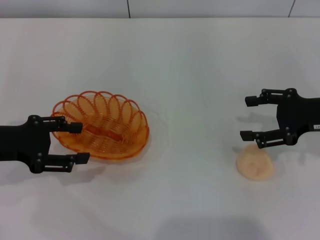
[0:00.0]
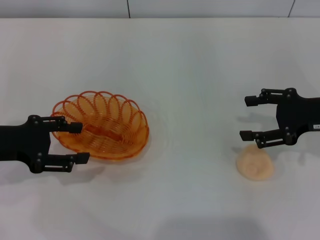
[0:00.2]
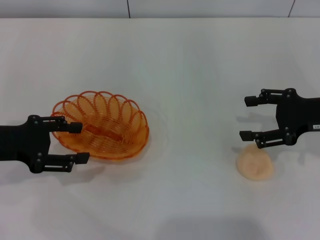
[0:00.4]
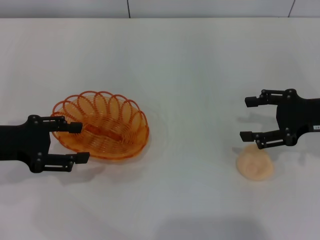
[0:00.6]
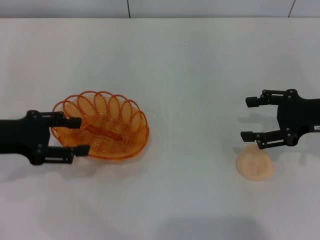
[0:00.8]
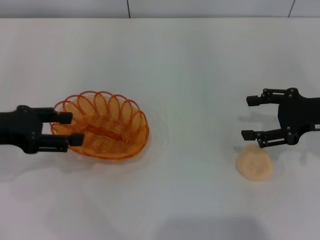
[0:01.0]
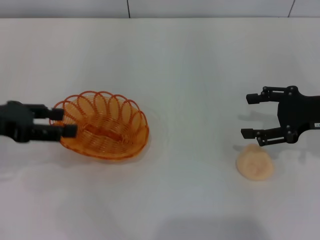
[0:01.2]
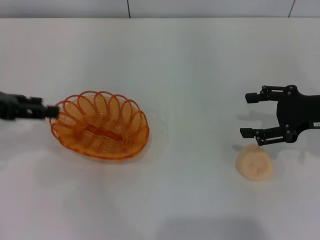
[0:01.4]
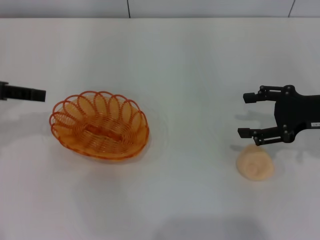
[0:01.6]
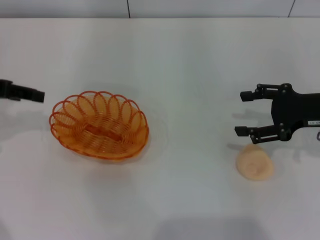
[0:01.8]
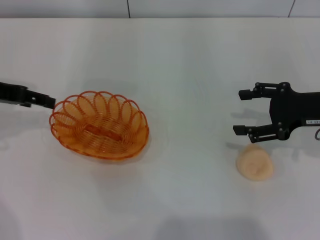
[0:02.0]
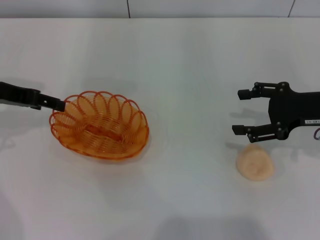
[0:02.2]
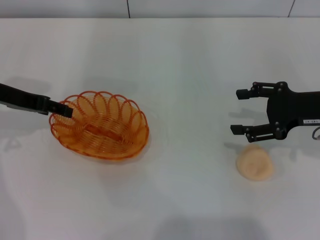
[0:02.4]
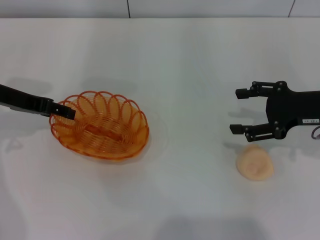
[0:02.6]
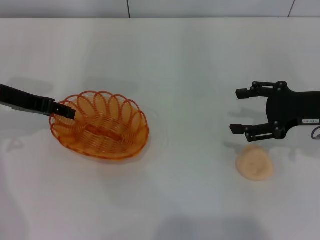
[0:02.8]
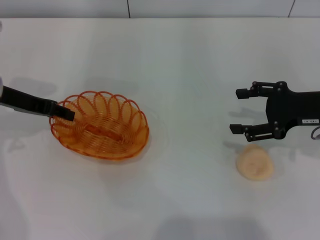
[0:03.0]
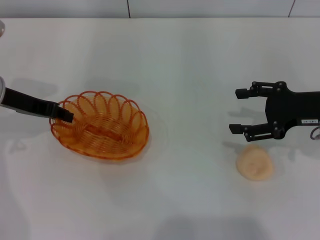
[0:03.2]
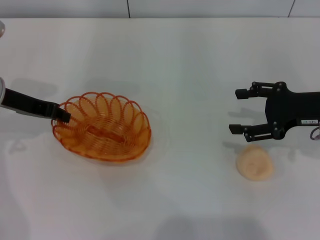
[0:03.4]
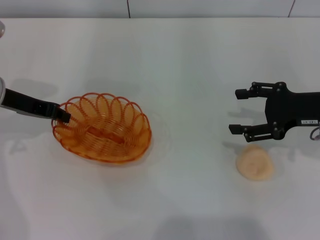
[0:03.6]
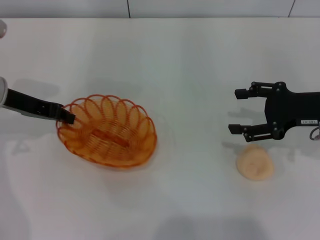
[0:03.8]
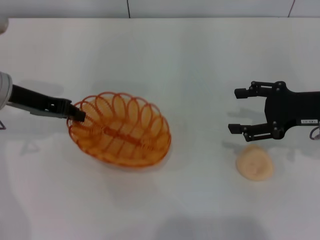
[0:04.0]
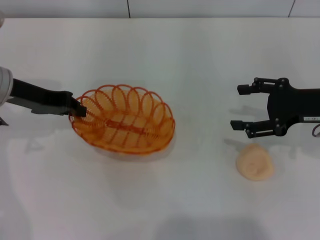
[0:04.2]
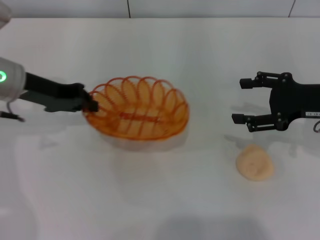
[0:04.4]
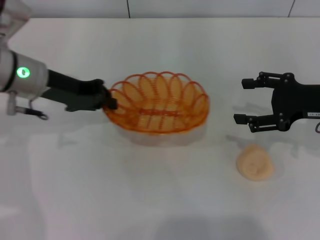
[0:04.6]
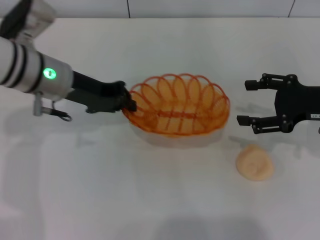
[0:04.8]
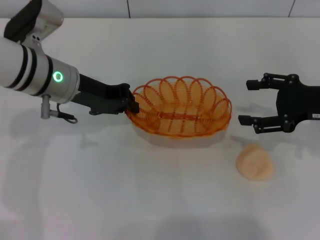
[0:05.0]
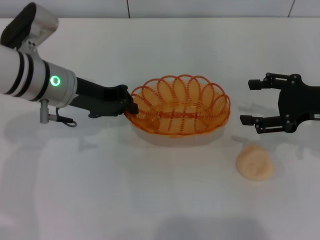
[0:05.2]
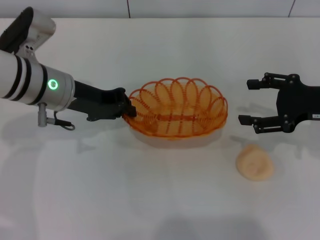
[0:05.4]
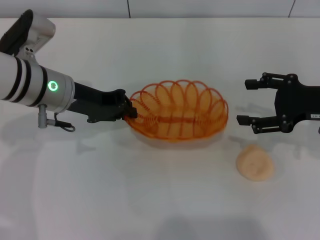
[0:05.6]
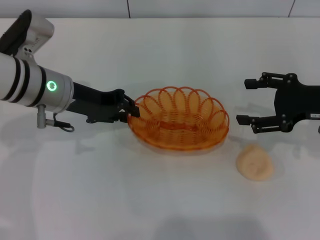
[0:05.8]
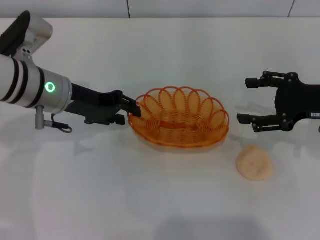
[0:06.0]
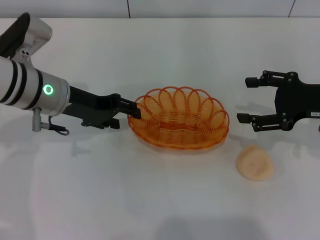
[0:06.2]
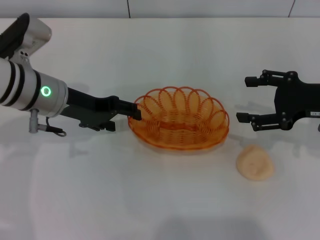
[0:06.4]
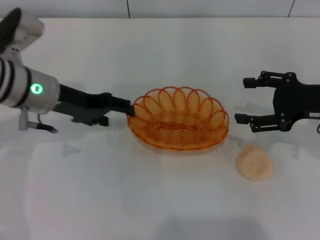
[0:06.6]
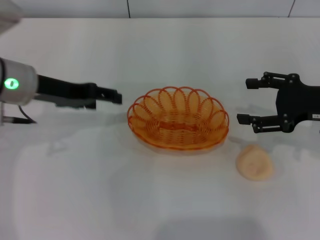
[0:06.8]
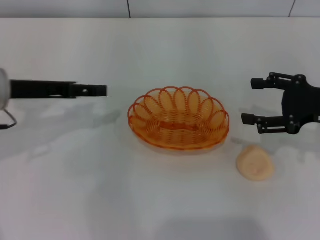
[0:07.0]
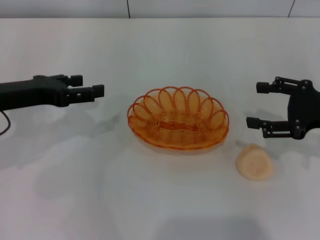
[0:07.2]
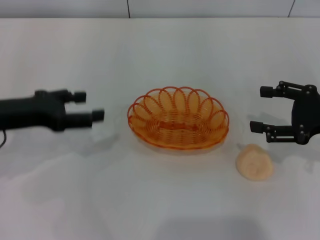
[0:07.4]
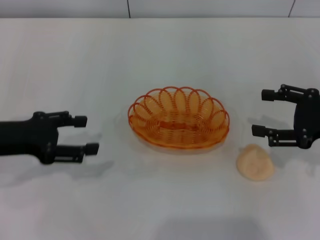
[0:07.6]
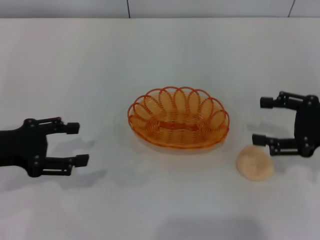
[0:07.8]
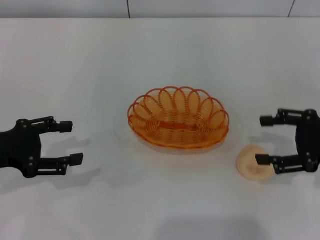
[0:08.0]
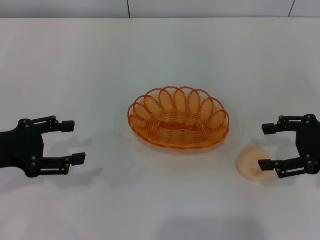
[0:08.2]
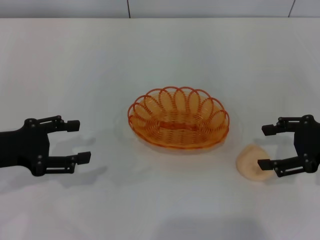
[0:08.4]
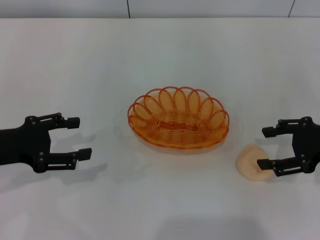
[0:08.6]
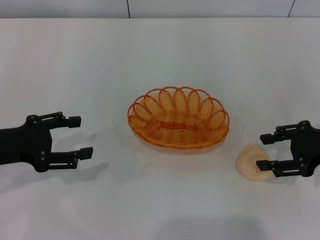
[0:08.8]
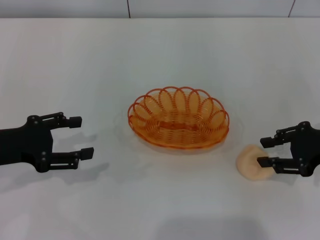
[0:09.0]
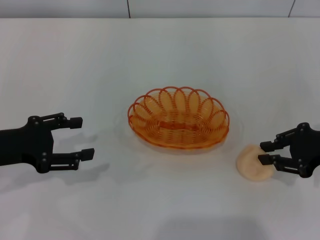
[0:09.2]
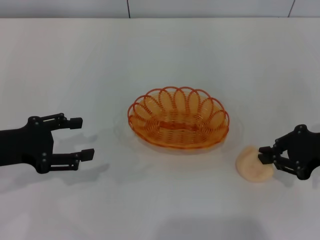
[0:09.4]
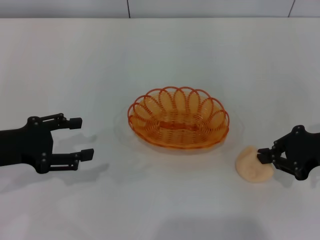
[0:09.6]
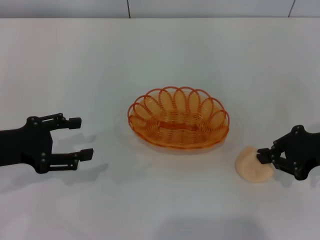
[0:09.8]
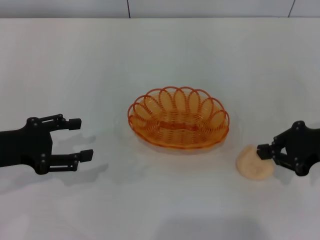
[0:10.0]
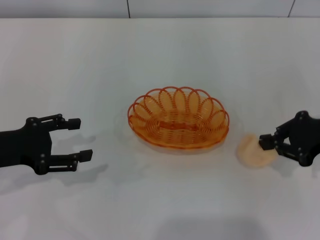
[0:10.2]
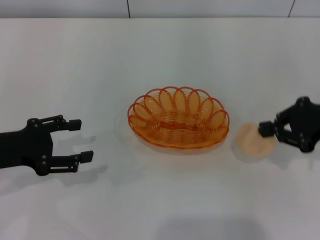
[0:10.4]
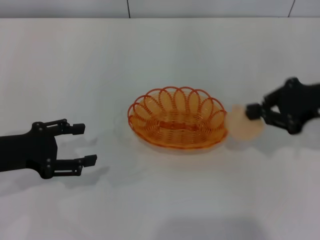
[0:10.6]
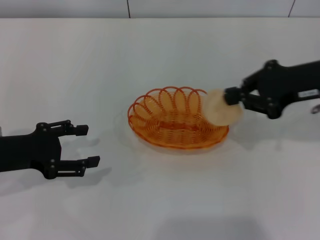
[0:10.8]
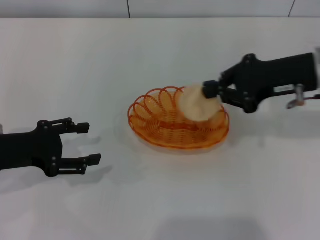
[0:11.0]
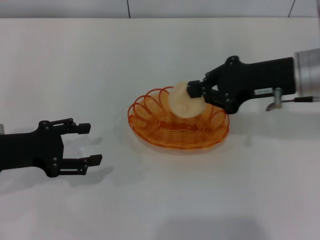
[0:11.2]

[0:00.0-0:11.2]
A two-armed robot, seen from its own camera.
Step, 0:00.0 to 0:04.2: Pick up the basket with the left gripper.
Step, 0:04.6 to 0:07.0: Place the basket in the center of view with the left gripper.
Step, 0:07.2 to 0:10.6: Pick up the egg yolk pastry with the right gripper.
0:00.0 to 0:01.6: The left gripper heads upward, covering some 10 cm.
0:01.6 to 0:03.2: The left gripper travels downward and to the right by some 10 cm.
0:03.2 to 0:04.8: The left gripper goes about 10 cm to the right, and closes its fingers.
0:04.8 to 0:06.4: The left gripper opens up.
0:06.4 to 0:08.0: The left gripper travels to the left and backward by about 15 cm. The right gripper changes place by about 5 cm.
0:08.0 to 0:09.6: The right gripper closes.
0:09.6 to 0:11.2: The right gripper is displaced to the left, upward and forward by about 15 cm.

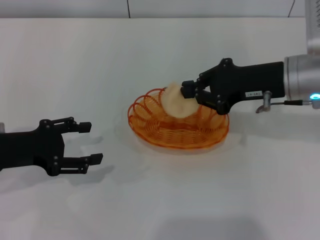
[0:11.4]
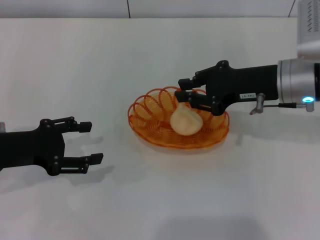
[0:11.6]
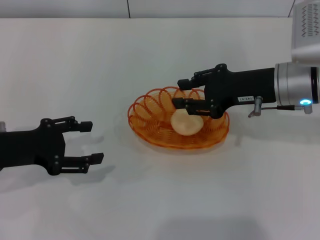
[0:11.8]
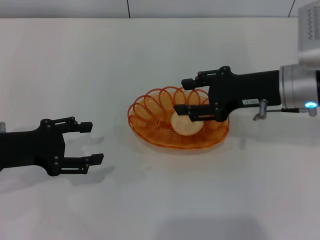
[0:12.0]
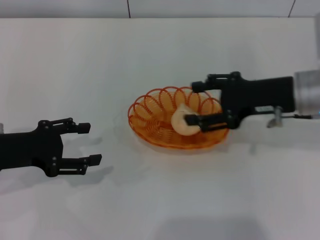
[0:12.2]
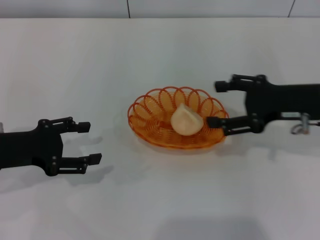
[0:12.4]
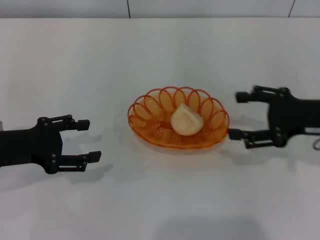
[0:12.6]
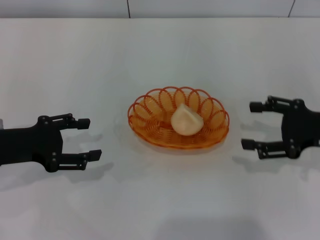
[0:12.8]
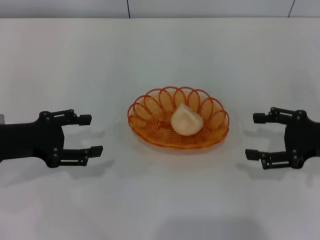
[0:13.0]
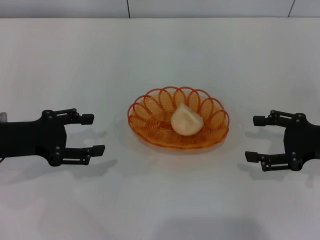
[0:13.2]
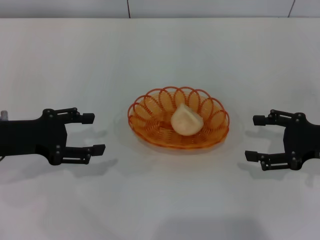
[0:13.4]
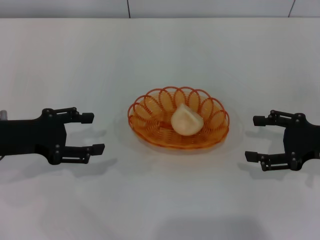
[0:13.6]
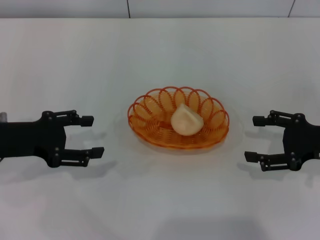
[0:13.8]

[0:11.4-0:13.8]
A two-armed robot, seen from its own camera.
Step, 0:11.4 to 0:12.6: Place the egg yolk pastry into the basket with the right gripper.
0:11.4 to 0:12.6: The right gripper heads to the right, covering about 10 cm, and opens.
0:12.6 to 0:13.8: The right gripper ends up some 5 cm from where it was.

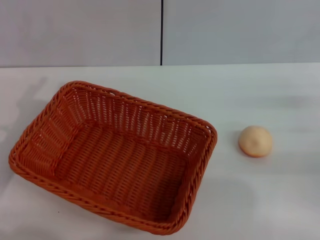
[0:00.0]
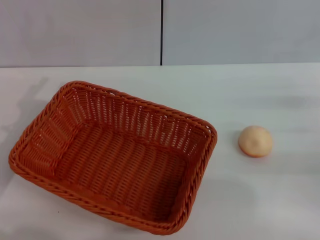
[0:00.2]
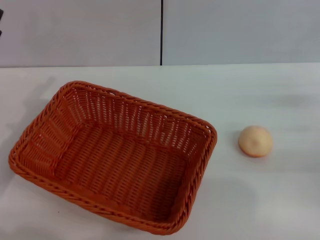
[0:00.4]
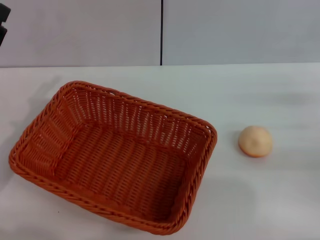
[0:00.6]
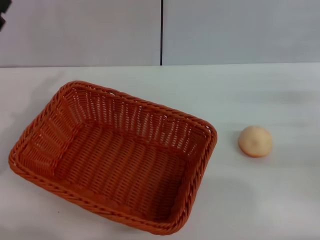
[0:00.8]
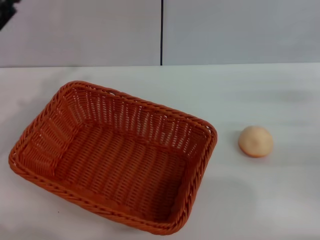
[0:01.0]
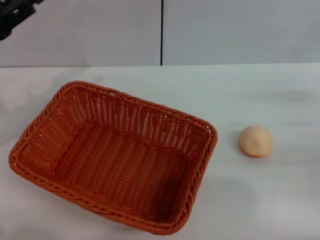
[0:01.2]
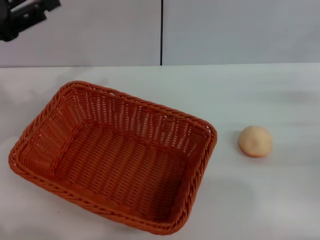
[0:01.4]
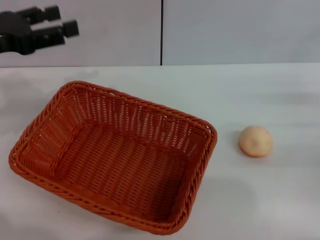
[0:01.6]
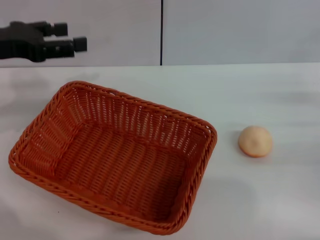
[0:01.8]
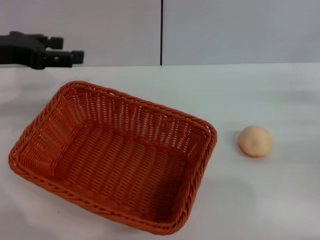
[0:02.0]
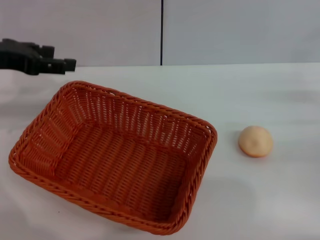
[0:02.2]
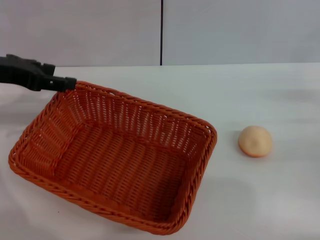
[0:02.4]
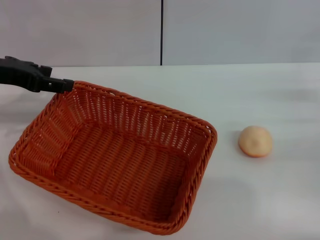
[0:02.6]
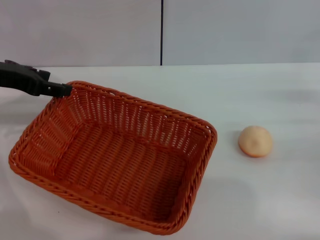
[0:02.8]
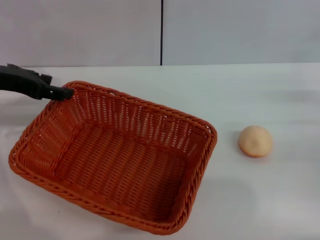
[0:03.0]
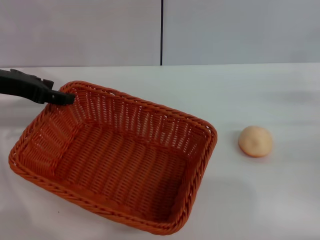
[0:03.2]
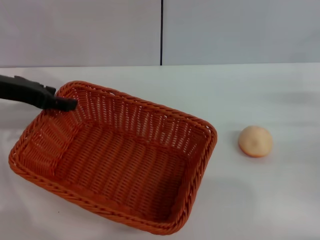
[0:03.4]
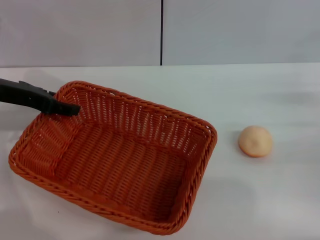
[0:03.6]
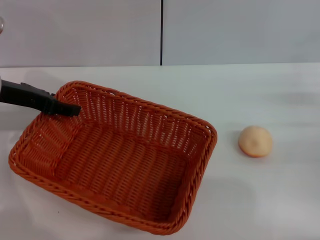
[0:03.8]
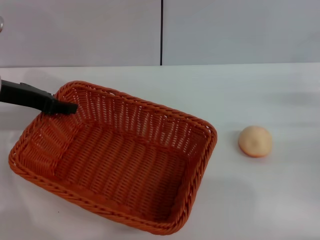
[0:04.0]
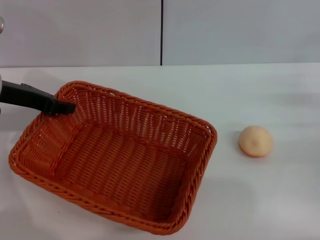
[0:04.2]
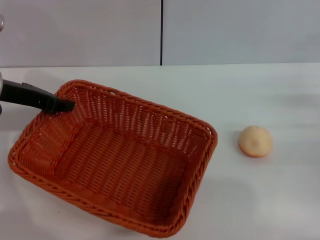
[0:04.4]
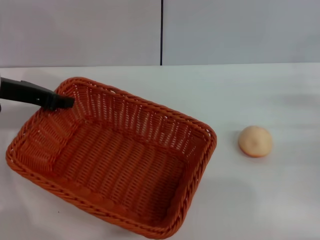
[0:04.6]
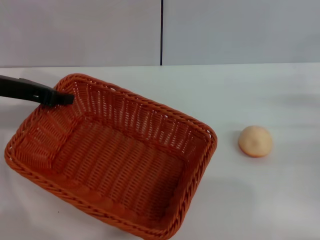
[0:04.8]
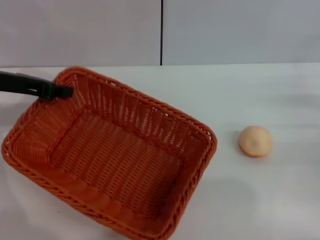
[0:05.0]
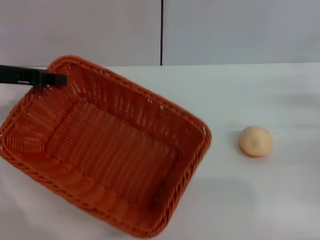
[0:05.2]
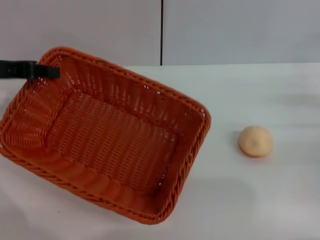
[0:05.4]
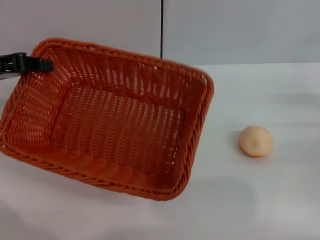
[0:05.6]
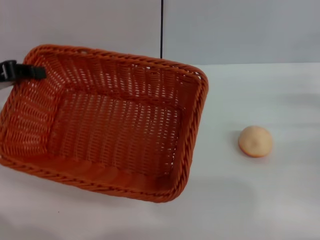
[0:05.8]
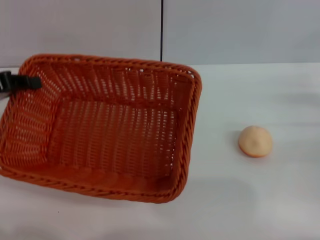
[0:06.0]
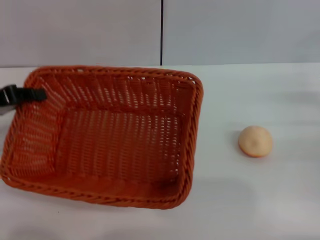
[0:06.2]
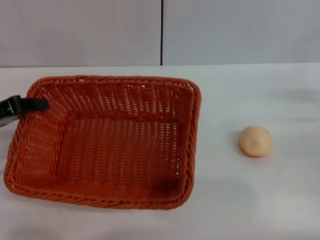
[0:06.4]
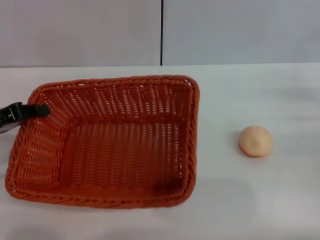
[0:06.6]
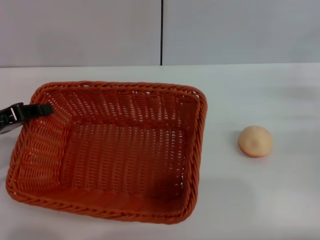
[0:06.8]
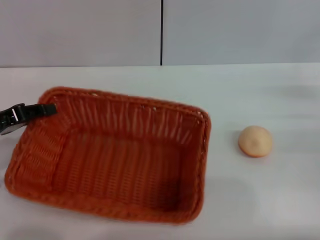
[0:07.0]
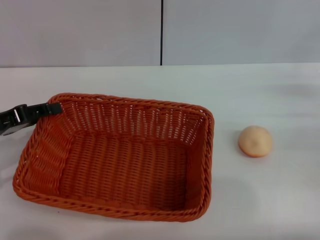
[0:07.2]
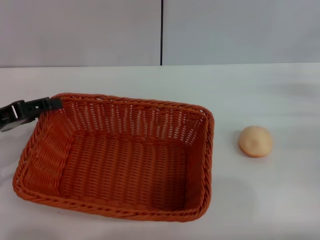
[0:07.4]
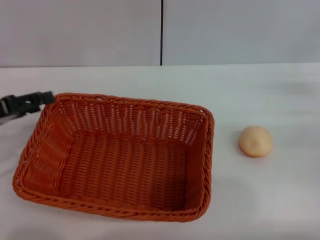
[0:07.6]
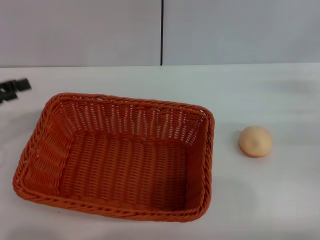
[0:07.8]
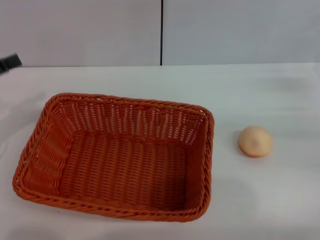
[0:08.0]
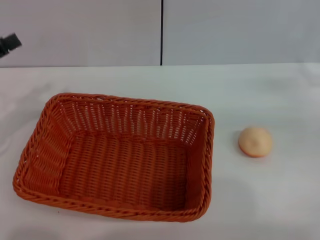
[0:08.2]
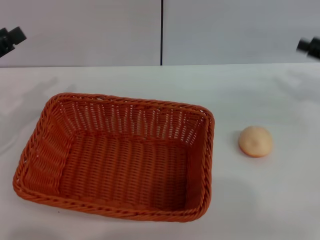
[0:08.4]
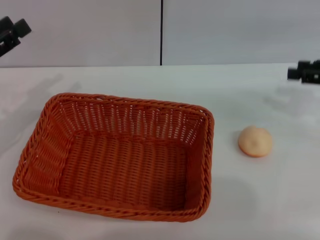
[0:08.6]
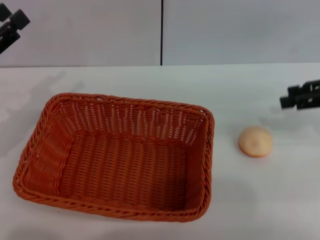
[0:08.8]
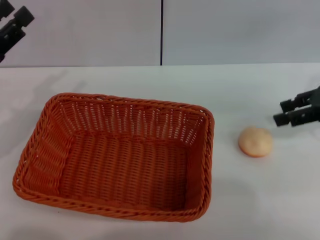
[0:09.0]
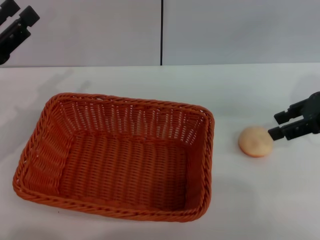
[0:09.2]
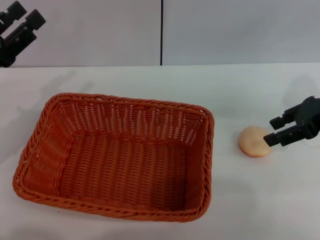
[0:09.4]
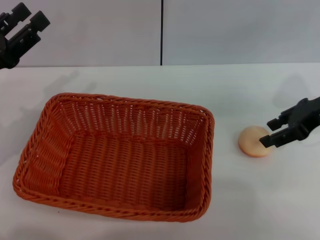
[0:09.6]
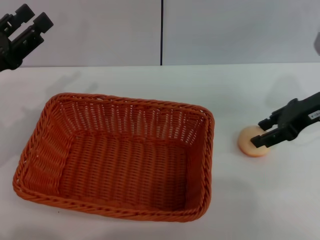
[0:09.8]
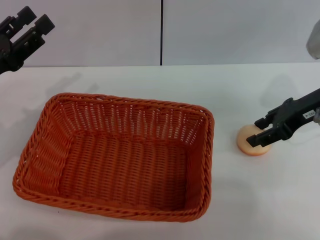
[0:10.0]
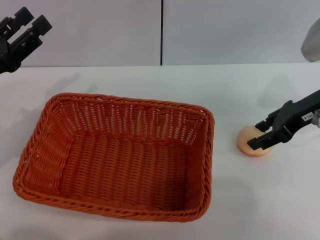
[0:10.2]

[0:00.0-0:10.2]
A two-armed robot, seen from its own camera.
Step, 0:00.0 to 0:07.6: Move the basket to the center of view with the left gripper.
0:00.0 to 0:01.4: The left gripper goes roughly 10 cm upward and forward.
0:03.0 to 0:04.4: The left gripper closes up.
0:04.4 to 0:05.8: The left gripper shifts approximately 5 cm to the left.
0:05.8 to 0:07.2: The left gripper shifts some 5 cm downward.
0:07.2 to 0:08.8: The left gripper opens. The right gripper heads upward, covering approximately 10 cm.
0:08.8 to 0:10.2: The right gripper is displaced to the left by about 10 cm.
